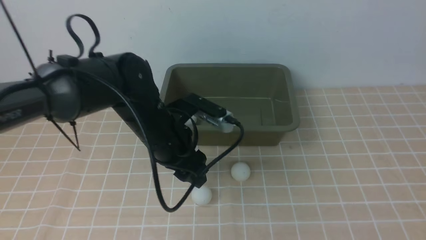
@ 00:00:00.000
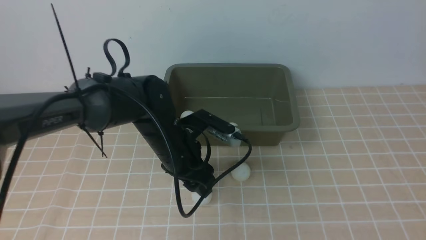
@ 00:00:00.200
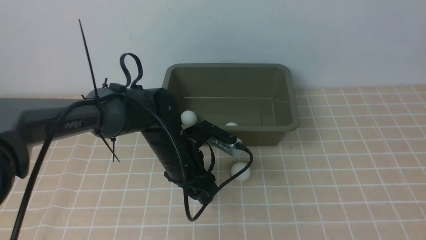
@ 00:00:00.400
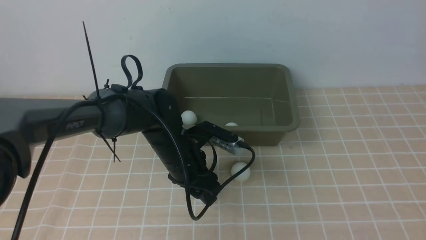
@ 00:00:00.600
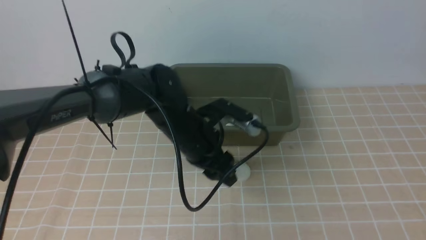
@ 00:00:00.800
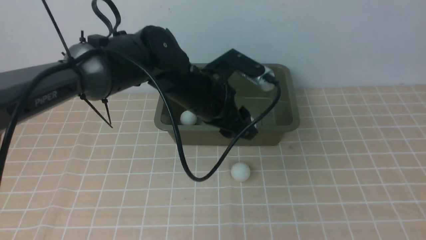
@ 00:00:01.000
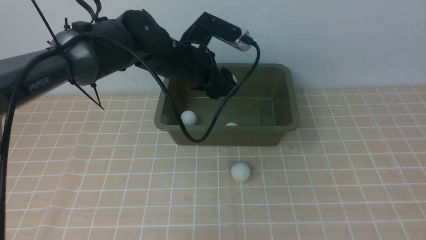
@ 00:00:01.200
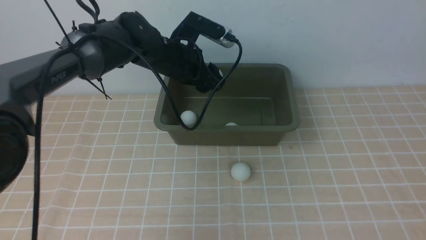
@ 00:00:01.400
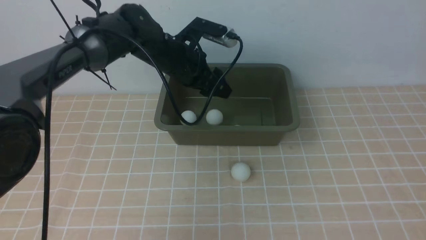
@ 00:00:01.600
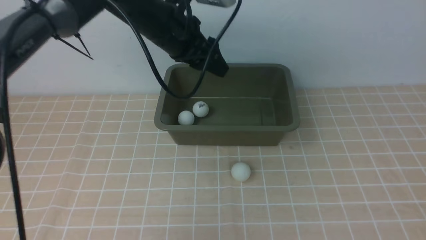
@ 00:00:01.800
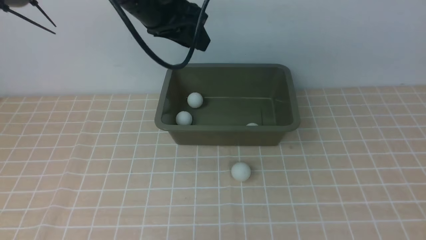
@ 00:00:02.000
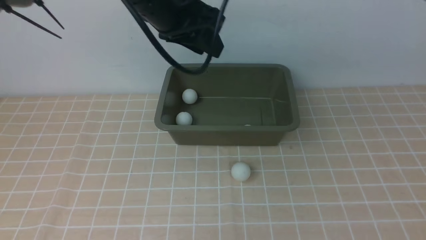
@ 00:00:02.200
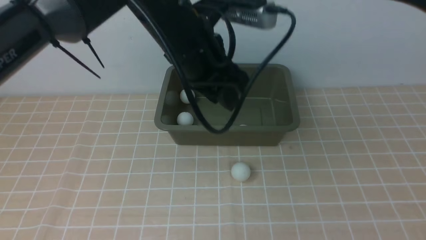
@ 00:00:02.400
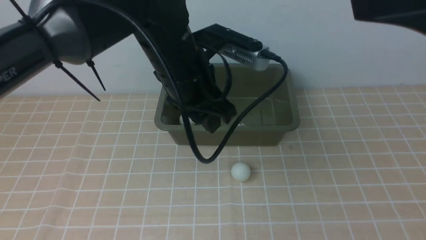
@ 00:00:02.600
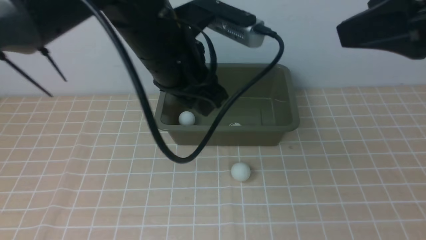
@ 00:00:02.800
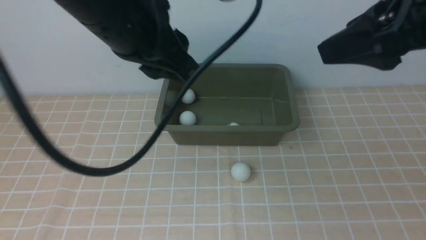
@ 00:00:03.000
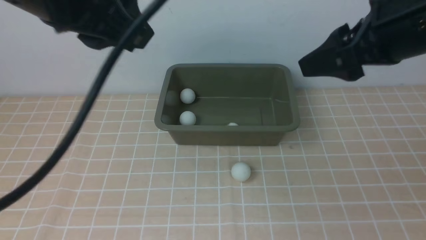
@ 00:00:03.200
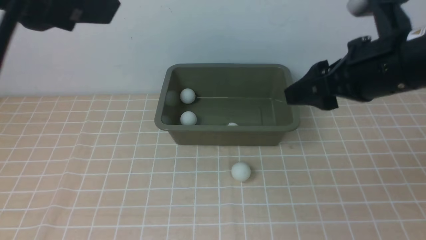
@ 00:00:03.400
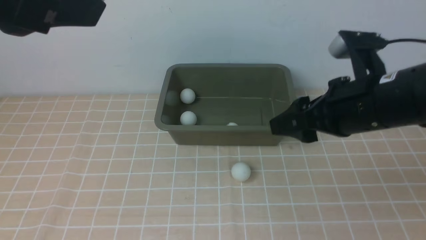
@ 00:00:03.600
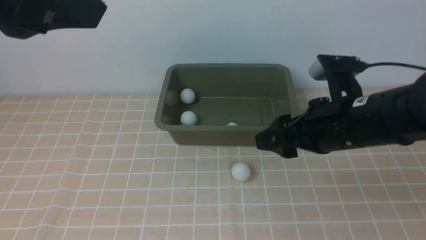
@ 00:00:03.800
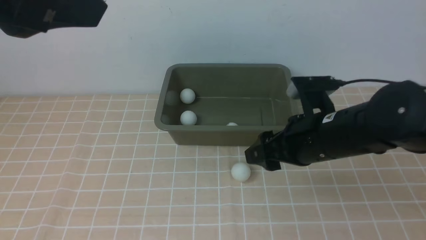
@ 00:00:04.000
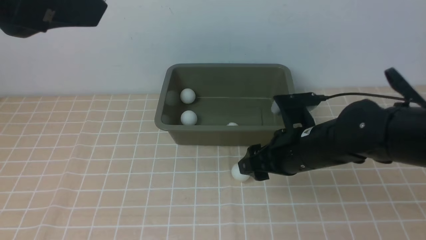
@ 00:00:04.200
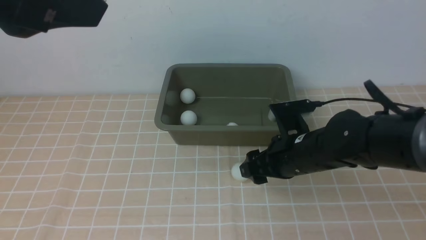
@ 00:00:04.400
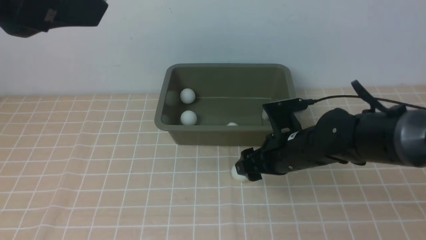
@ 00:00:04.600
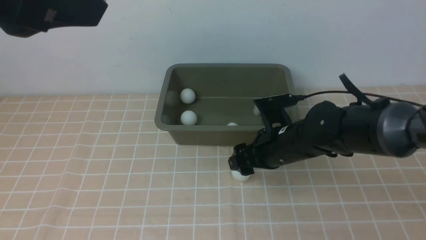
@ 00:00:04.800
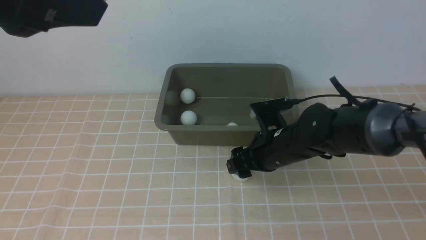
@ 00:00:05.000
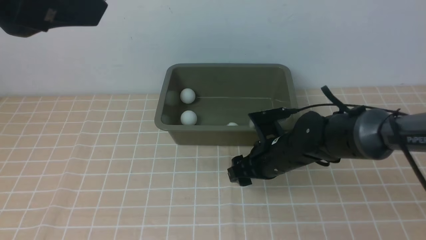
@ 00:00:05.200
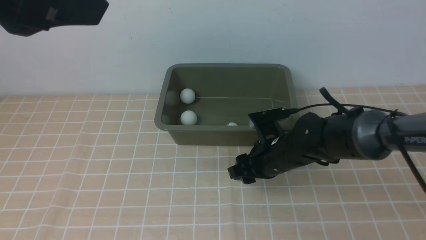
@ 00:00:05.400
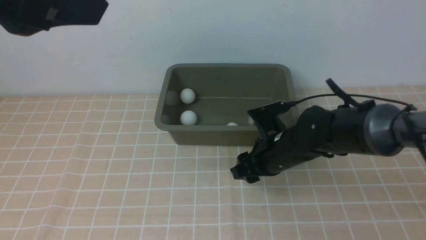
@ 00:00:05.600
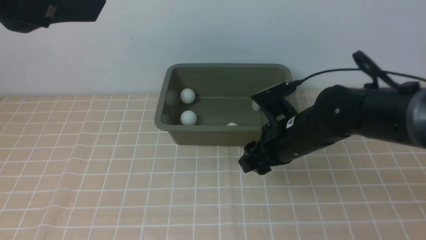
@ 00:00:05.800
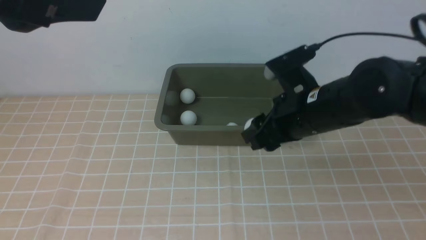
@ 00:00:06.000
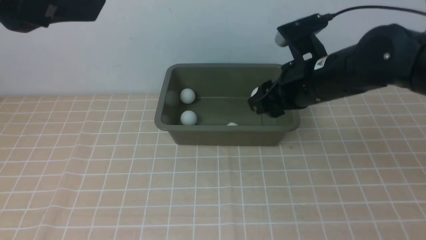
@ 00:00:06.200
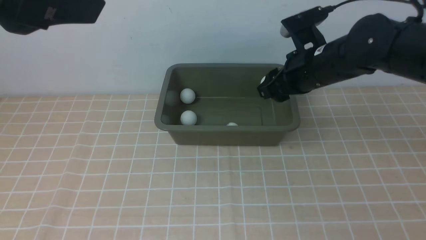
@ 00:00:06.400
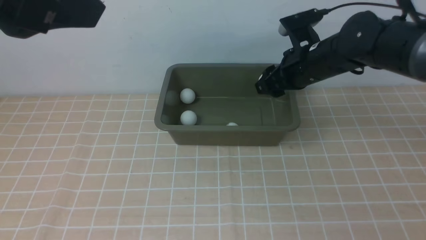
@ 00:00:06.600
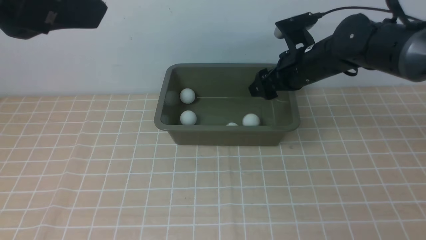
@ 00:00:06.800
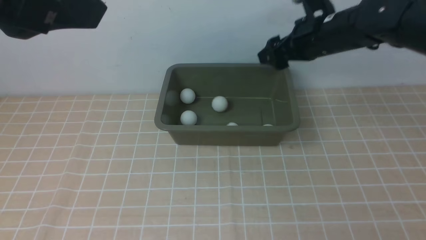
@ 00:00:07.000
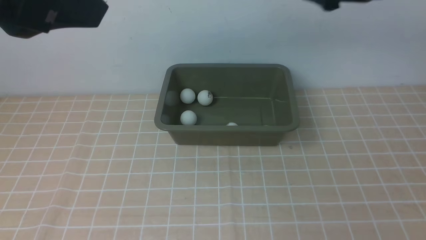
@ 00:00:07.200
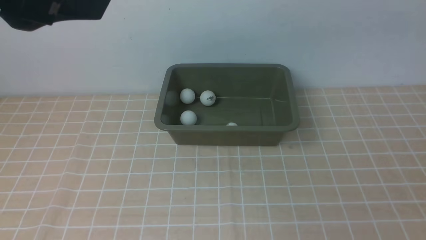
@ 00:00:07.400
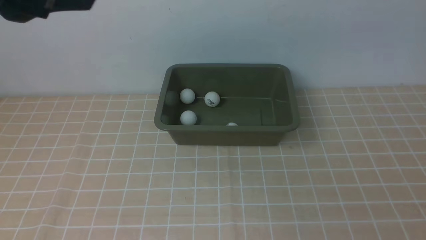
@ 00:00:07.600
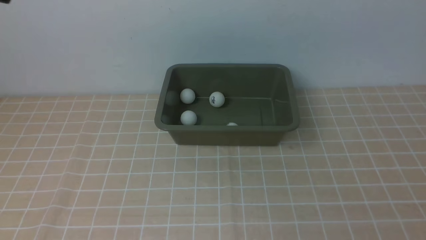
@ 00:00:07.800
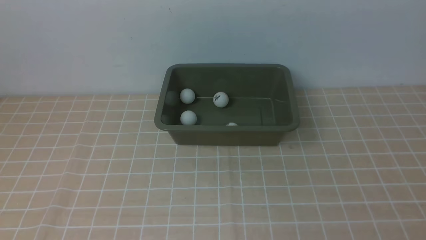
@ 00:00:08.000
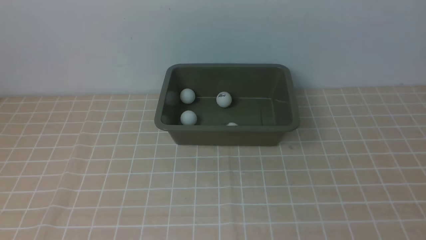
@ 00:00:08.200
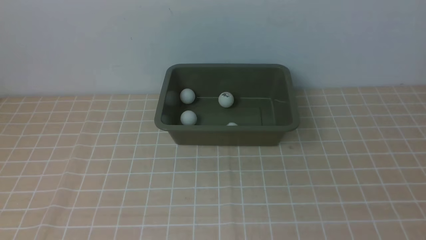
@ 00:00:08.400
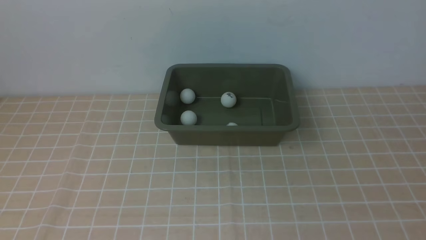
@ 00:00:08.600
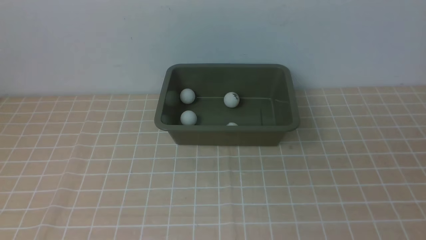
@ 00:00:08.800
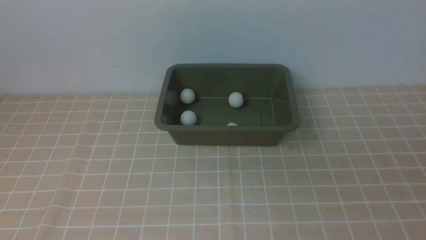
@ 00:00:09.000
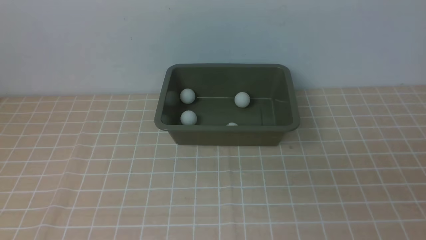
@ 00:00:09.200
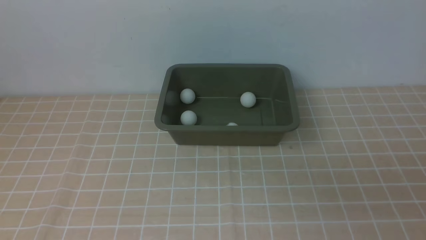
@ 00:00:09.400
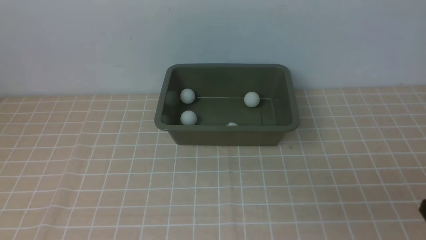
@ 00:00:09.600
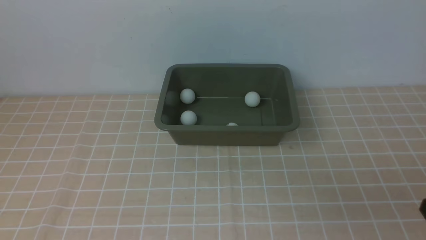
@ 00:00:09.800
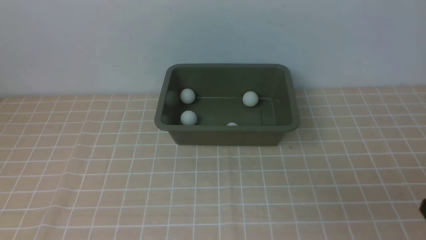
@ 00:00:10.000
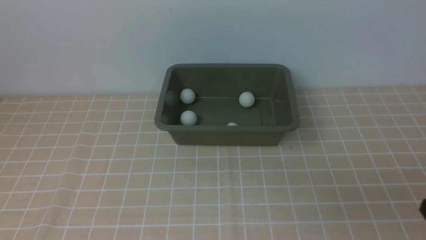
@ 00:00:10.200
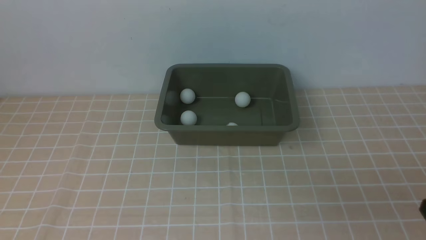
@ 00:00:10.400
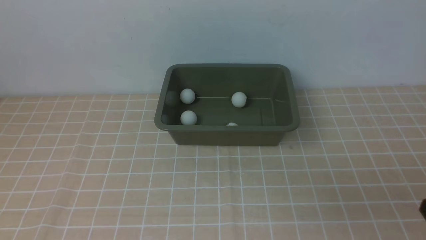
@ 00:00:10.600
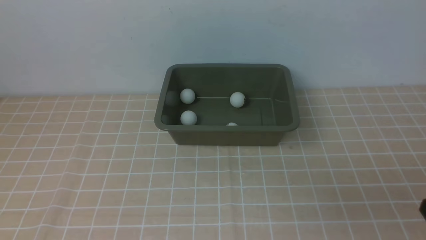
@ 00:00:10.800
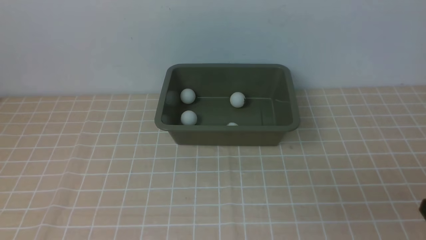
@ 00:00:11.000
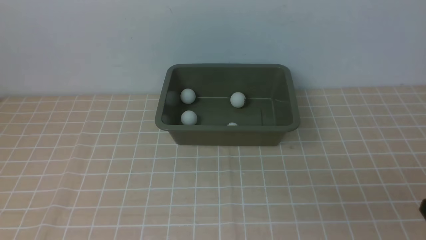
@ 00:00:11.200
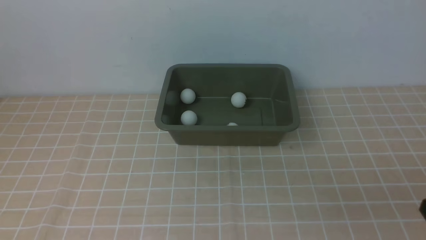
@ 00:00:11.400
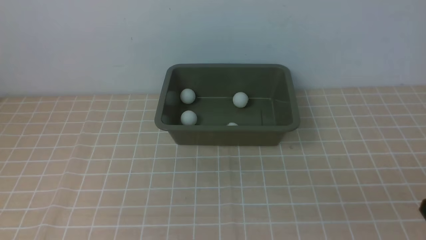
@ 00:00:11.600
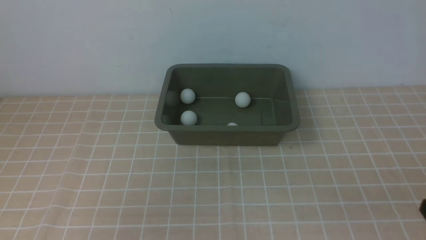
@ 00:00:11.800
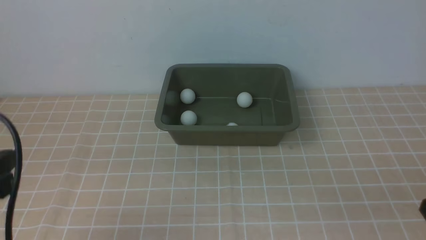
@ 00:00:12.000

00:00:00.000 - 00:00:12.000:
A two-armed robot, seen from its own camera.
Step, 00:00:01.200 - 00:00:02.000: use the left arm to put the table tennis ball into the box.
Step, 00:00:02.200 - 00:00:05.600: use the right arm to clamp the table tennis ball closest to it.
Step, 00:00:05.800 - 00:00:06.800: use the right arm to put the table tennis ball into the box.
00:00:00.000 - 00:00:01.600: The left gripper moves forward and upward, roughly 15 cm.
00:00:01.600 - 00:00:03.000: The right gripper is displaced downward by some 5 cm, while the left gripper is displaced backward and upward by some 25 cm, and closes up.
00:00:03.000 - 00:00:04.400: The right gripper heads downward, covering some 25 cm. Meanwhile the left gripper travels backward, upward and to the left by some 15 cm, and opens.
00:00:04.400 - 00:00:06.000: The right gripper heads upward, covering roughly 10 cm, and closes up.
00:00:06.000 - 00:00:07.600: The right gripper heads upward and to the right, covering roughly 30 cm, and opens its fingers.
00:00:10.400 - 00:00:12.000: The left gripper goes about 25 cm downward and to the left.

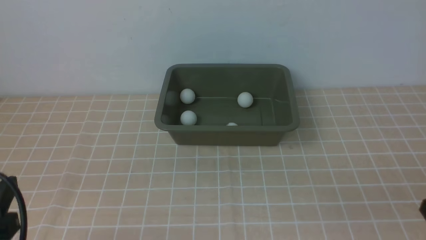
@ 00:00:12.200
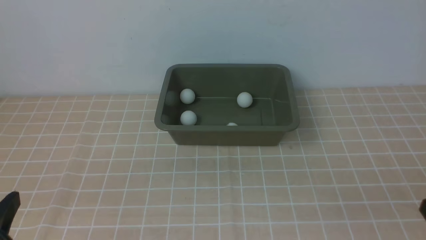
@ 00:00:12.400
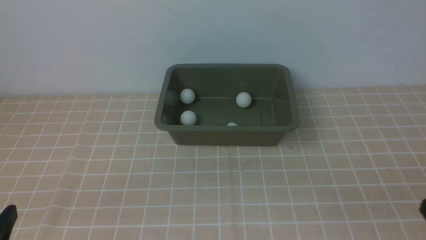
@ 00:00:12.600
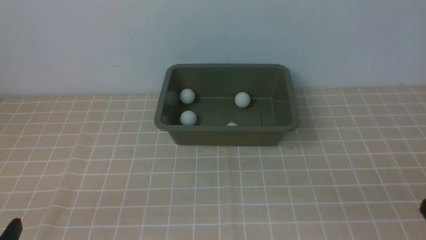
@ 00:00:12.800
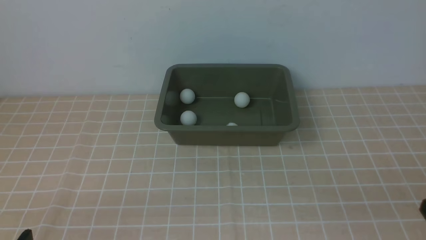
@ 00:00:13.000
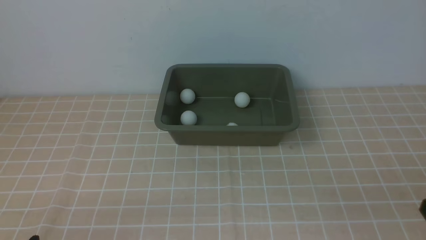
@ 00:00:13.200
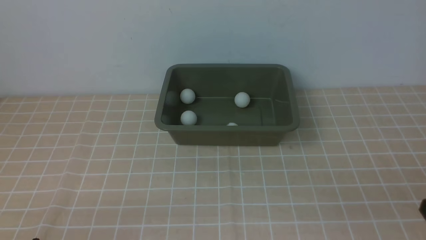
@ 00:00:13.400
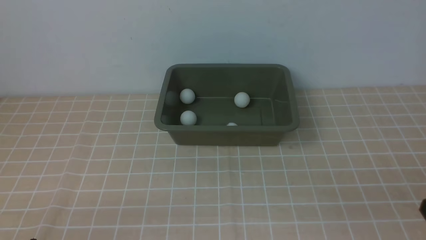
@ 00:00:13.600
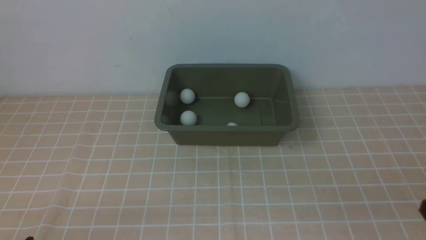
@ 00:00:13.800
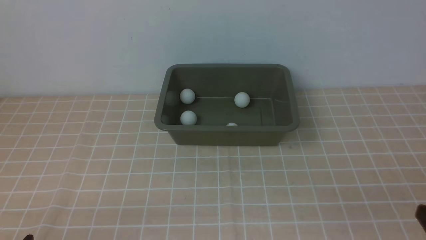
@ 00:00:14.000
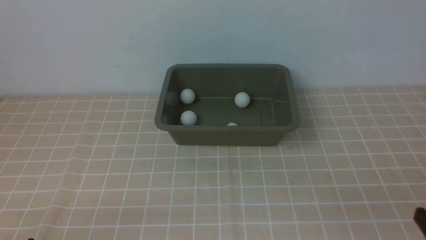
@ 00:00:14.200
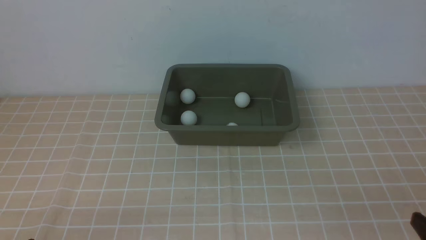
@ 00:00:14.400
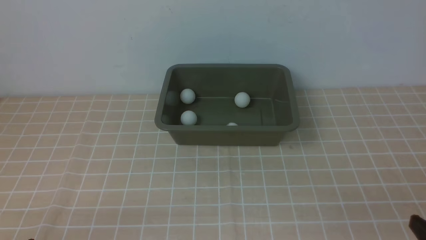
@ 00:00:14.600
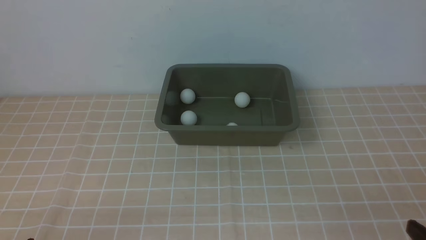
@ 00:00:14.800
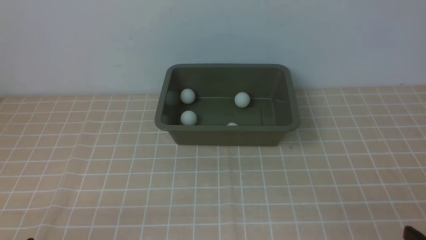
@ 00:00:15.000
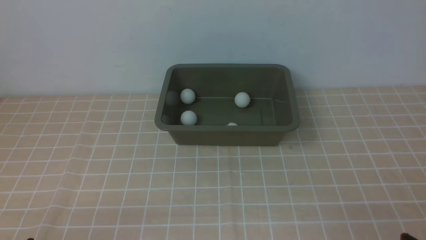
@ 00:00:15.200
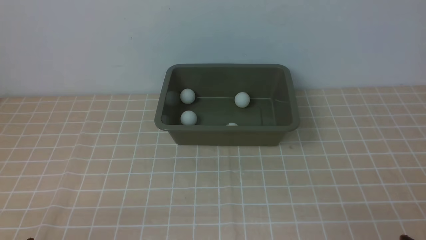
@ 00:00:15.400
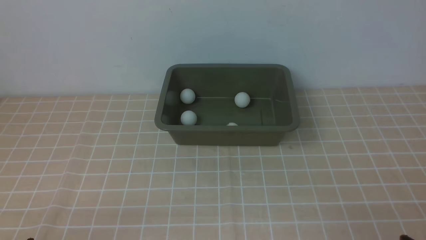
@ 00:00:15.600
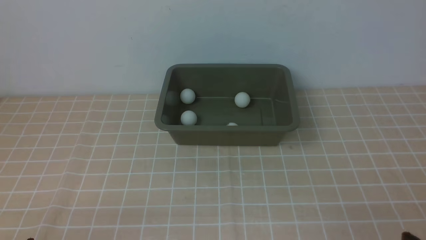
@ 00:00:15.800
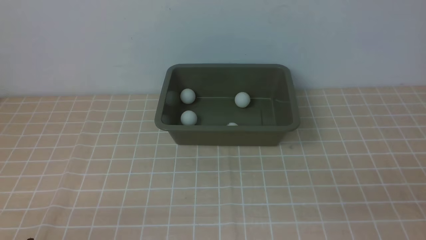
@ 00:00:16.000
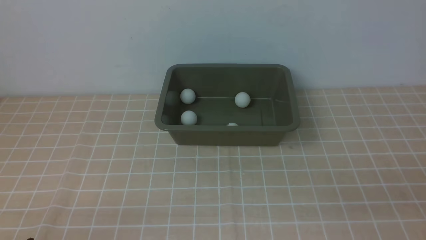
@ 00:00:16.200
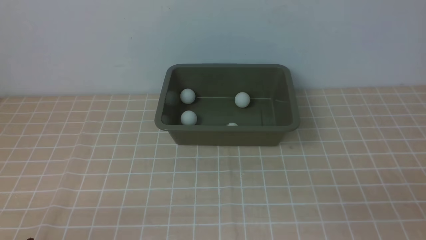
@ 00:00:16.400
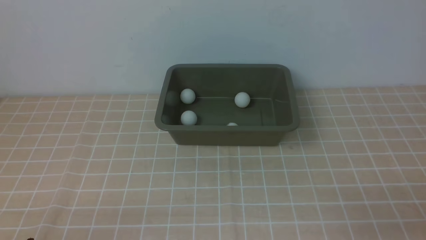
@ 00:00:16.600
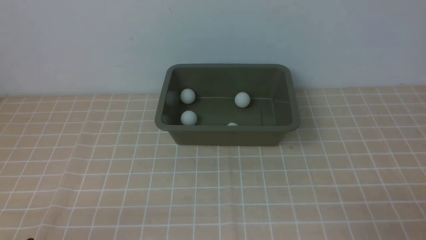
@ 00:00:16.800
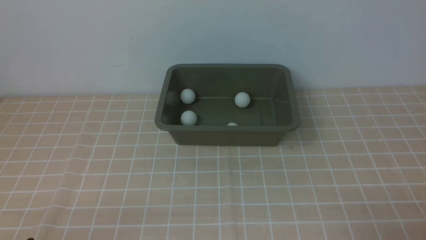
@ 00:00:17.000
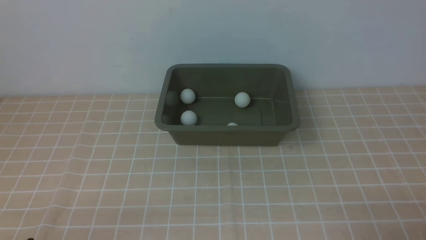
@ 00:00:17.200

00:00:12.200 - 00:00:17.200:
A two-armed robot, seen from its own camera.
00:00:12.200 - 00:00:13.800: The left gripper shifts approximately 10 cm downward.
